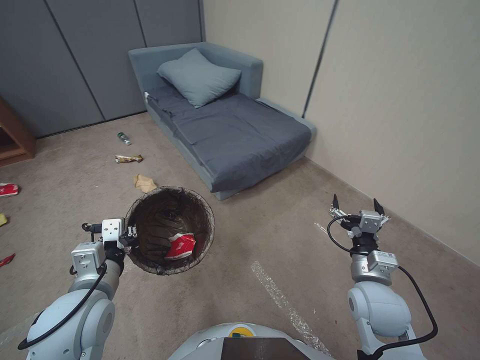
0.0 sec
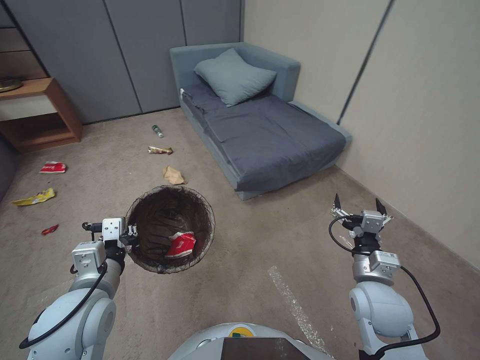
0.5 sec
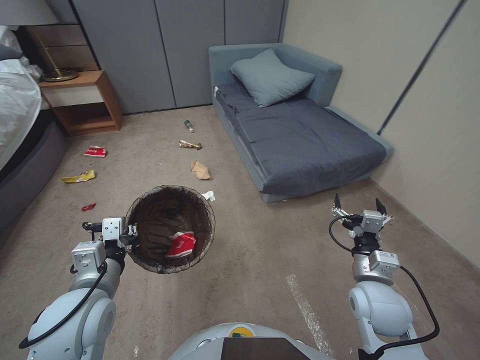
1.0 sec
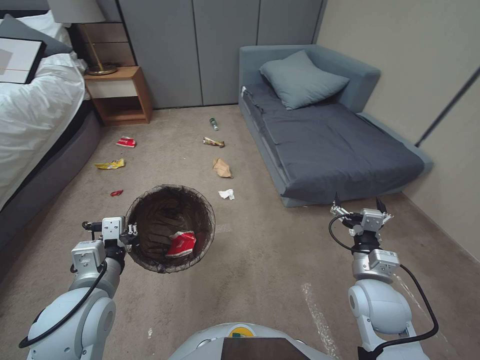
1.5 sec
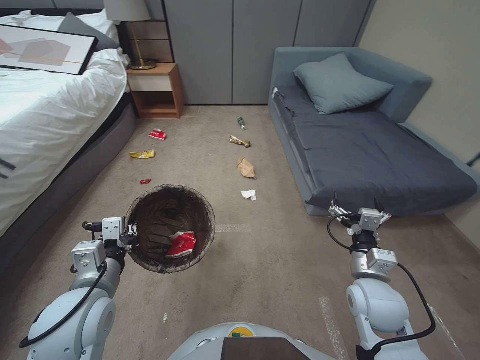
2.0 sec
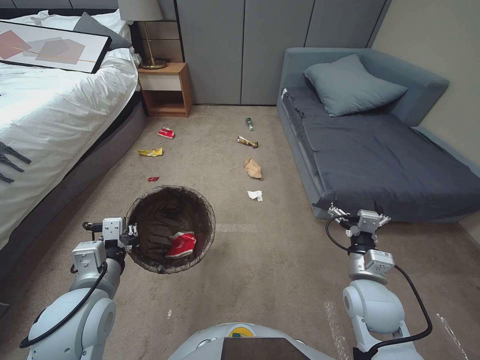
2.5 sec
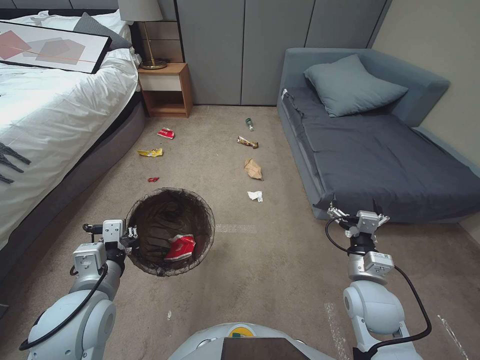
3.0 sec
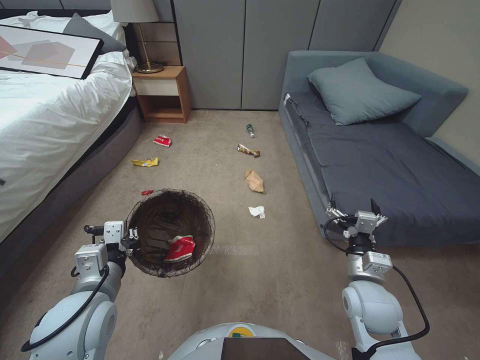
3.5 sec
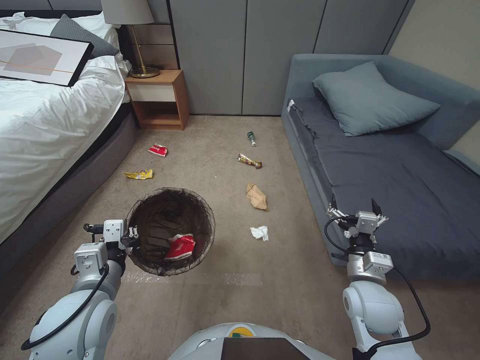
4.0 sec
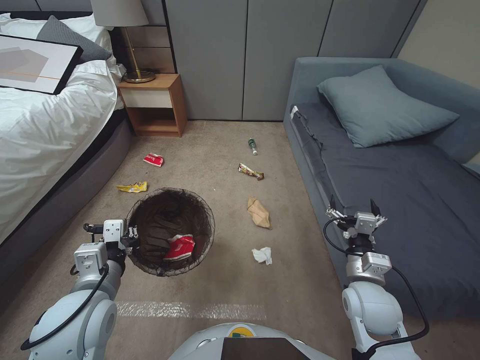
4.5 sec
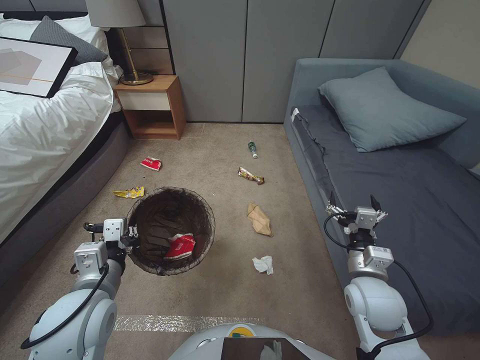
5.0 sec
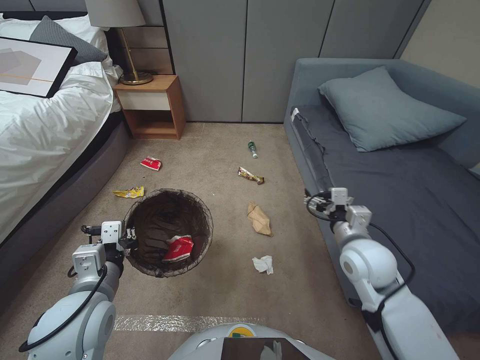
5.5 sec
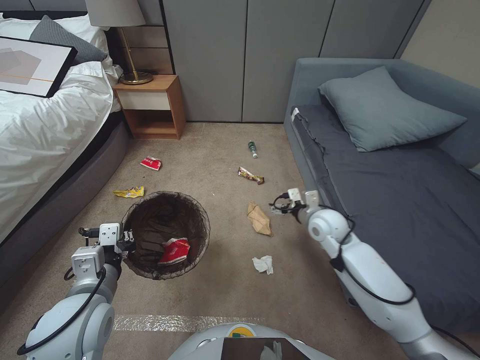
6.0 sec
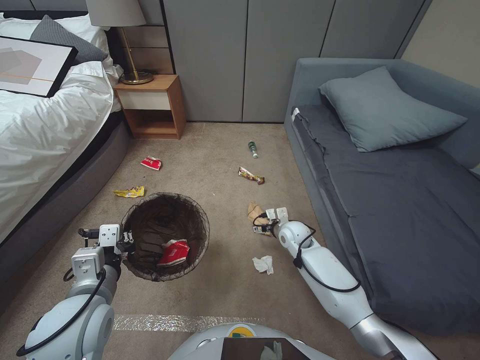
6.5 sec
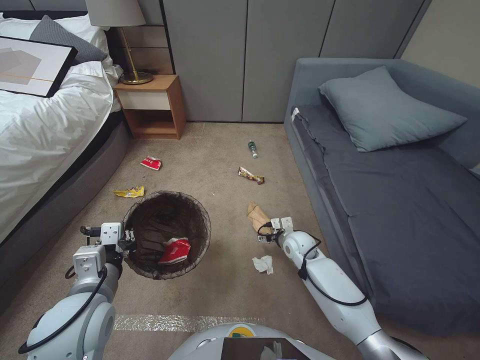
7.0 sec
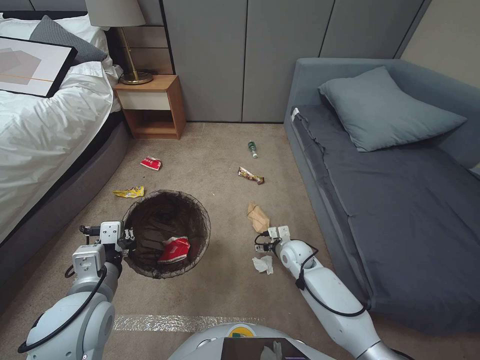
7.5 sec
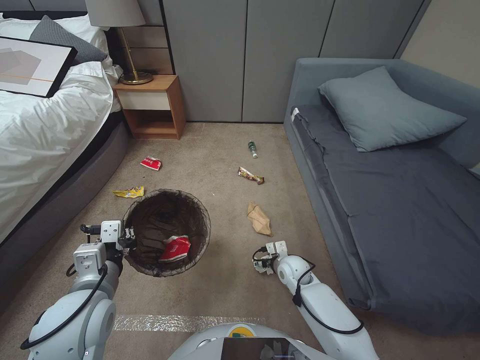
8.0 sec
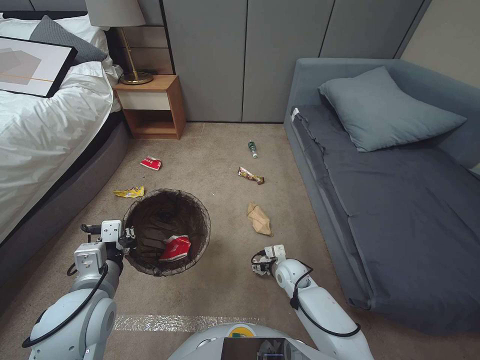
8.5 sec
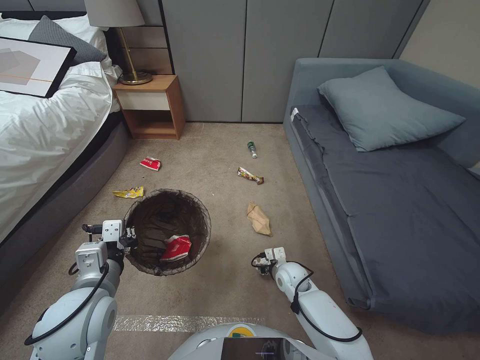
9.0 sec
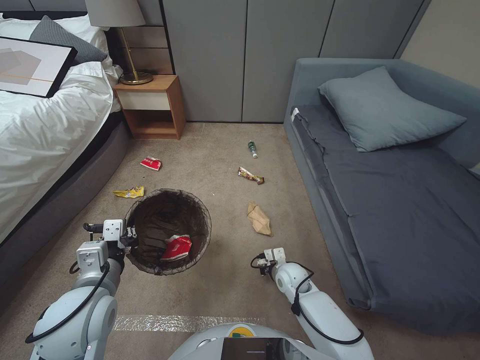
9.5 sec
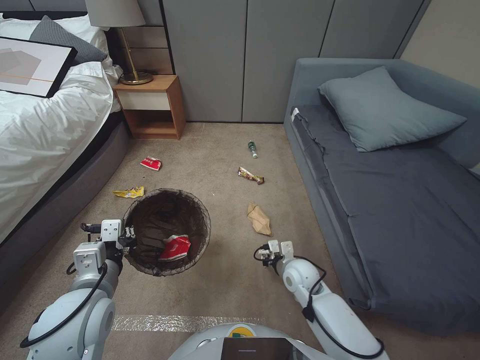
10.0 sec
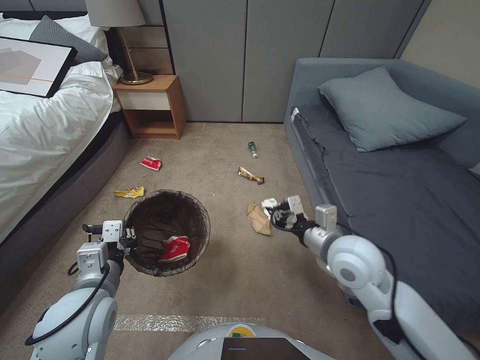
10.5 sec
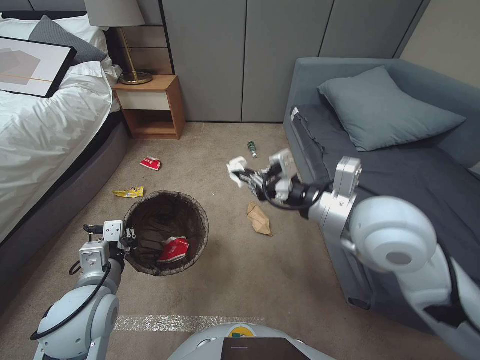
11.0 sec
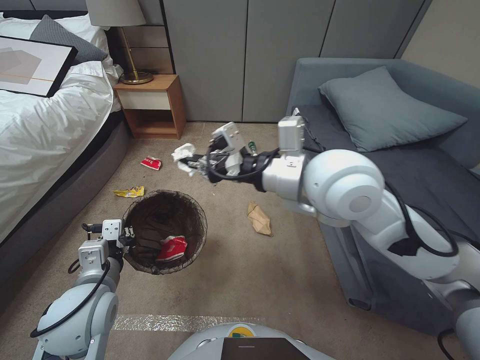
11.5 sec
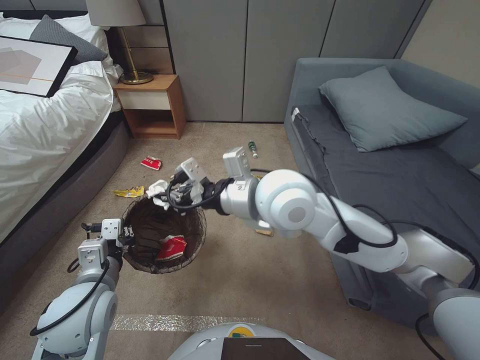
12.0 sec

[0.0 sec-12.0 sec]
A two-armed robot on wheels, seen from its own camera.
Task of the whole recording: Pick up the trash bin, then pick up the garbage from the floor and place it into the trash bin.
4.0 sec to 6.0 sec: The right gripper shifts some 15 cm forward.
6.0 sec to 8.0 sec: The right gripper is displaced downward by some 20 cm.
8.0 sec to 10.0 sec: The right gripper closes.
10.0 sec to 12.0 sec: The right gripper goes some 40 cm upward.

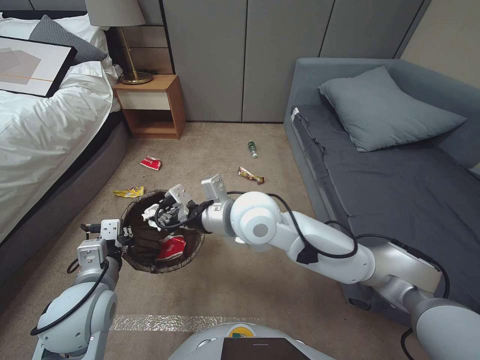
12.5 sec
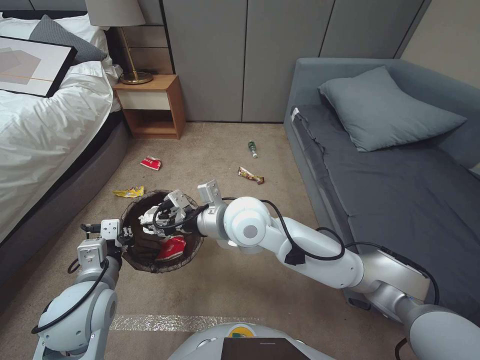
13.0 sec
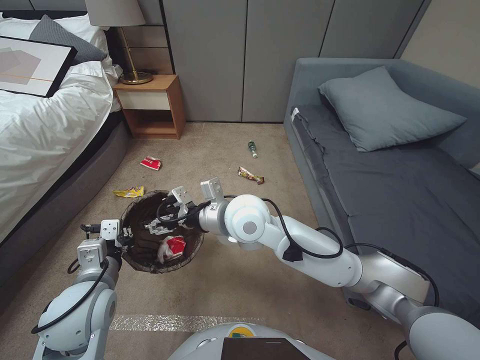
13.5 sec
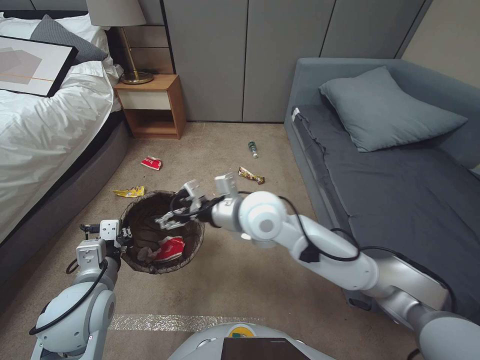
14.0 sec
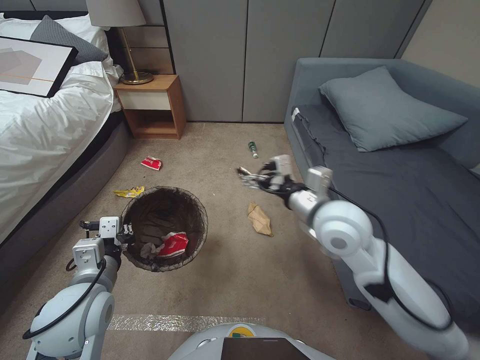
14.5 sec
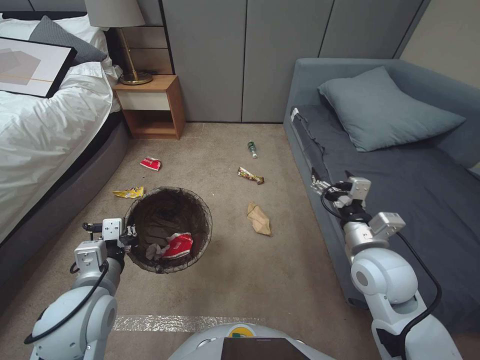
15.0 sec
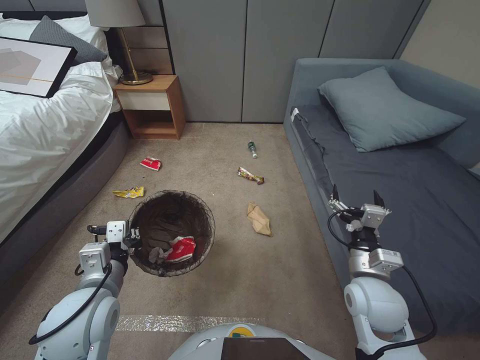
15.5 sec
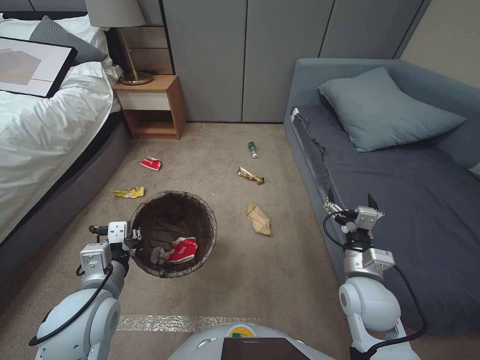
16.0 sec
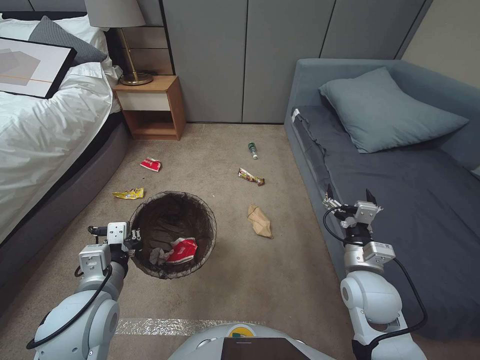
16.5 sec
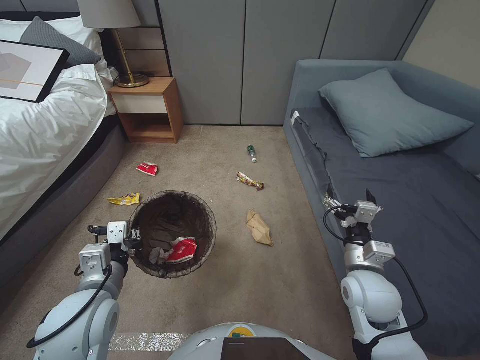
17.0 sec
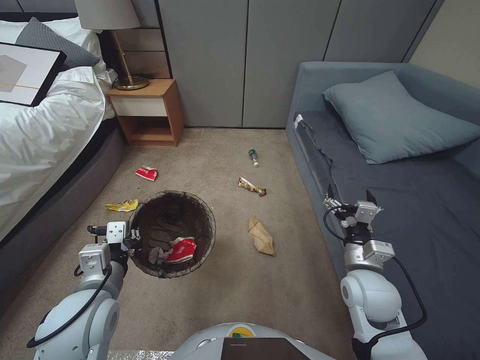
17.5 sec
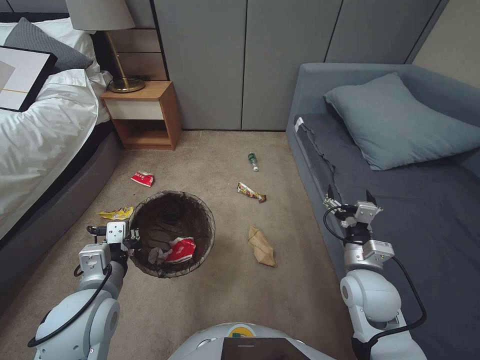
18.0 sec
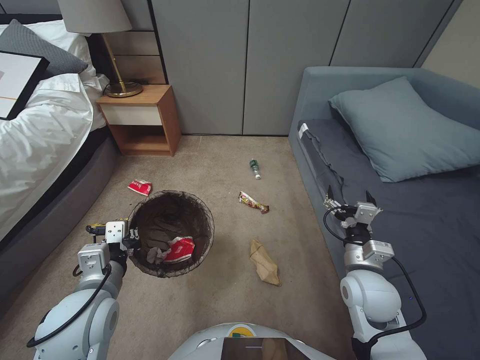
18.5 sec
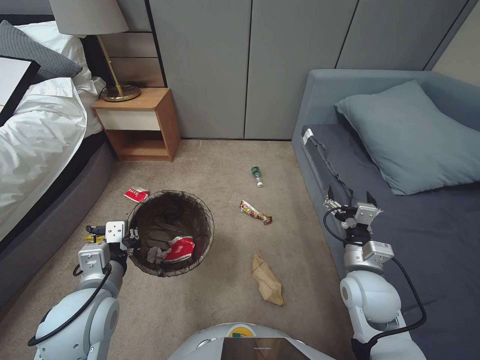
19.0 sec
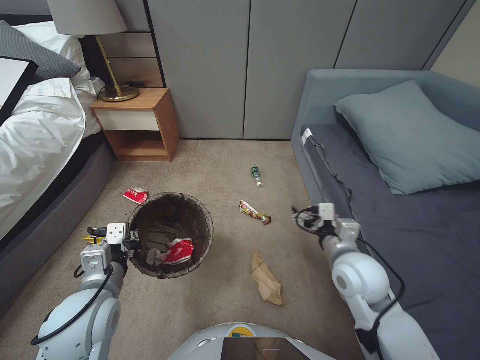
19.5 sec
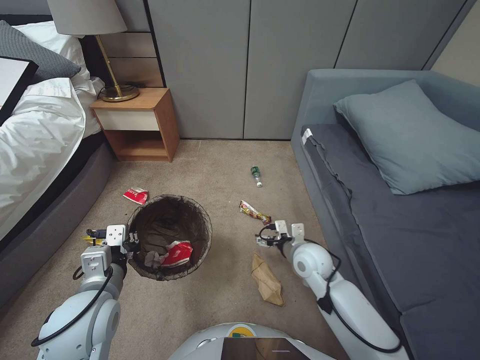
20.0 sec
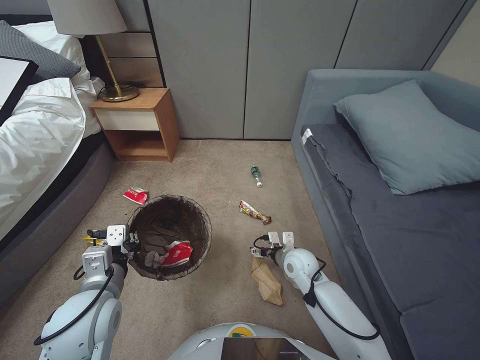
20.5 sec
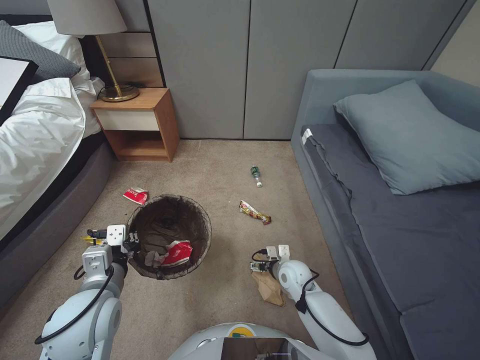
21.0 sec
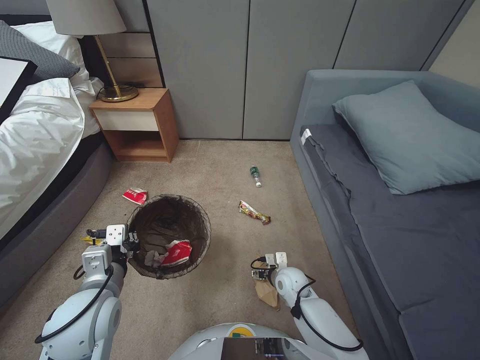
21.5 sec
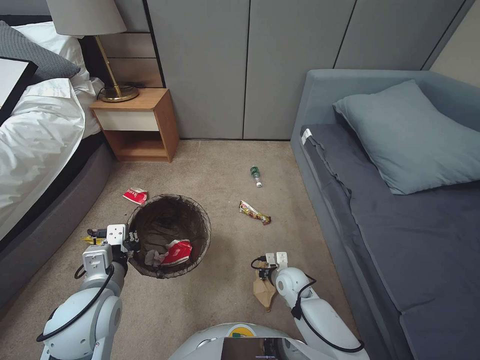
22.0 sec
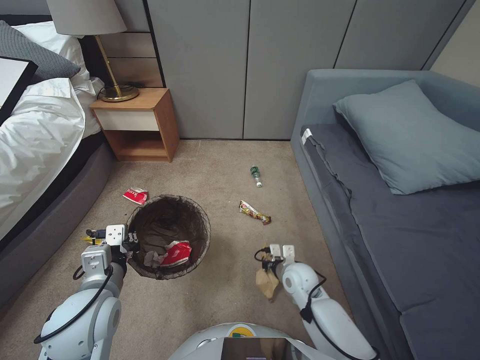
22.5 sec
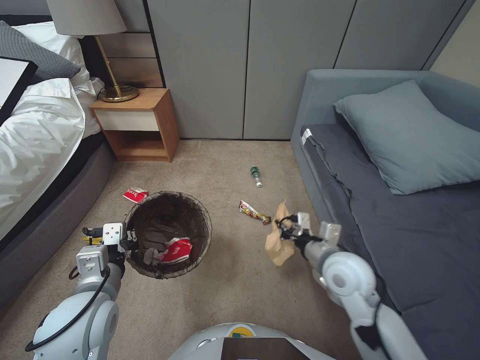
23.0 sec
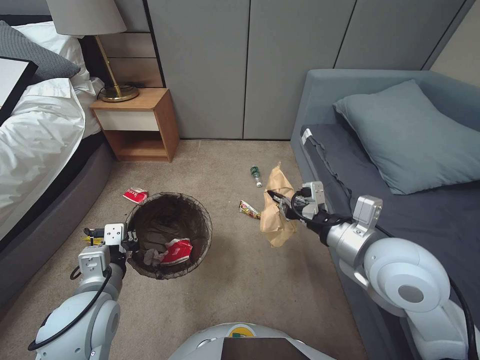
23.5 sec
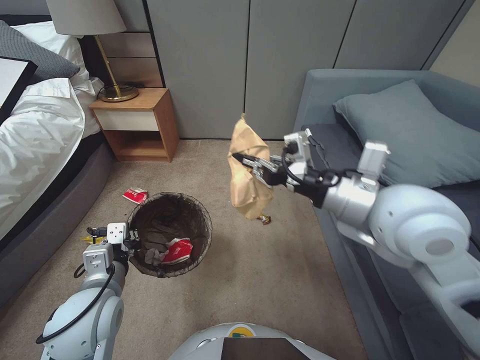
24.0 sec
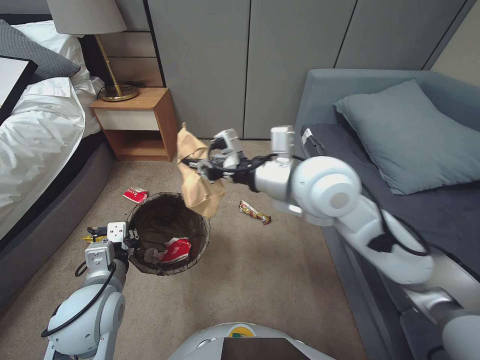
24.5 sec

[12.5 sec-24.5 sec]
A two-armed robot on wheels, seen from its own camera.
Task of the whole recording: Pick up the trash bin, then pick up the garbage from the floor and place it into the trash bin.
12.5 sec to 14.5 sec: The right gripper shifts approximately 15 cm to the right, and opens.
14.5 sec to 16.5 sec: The right gripper travels downward, to the right and backward by approximately 20 cm.
18.5 sec to 20.5 sec: The right gripper heads downward, forward and to the left, covering about 15 cm.
20.5 sec to 22.5 sec: The right gripper shifts approximately 5 cm downward, and closes.
22.5 sec to 24.5 sec: The right gripper is displaced upward by roughly 40 cm.

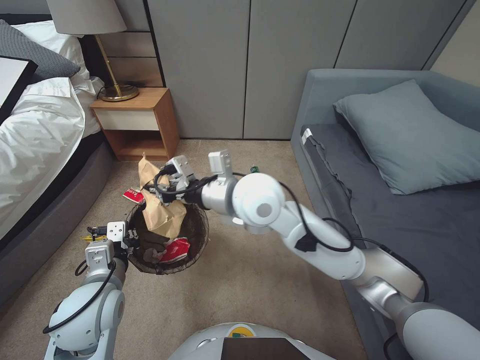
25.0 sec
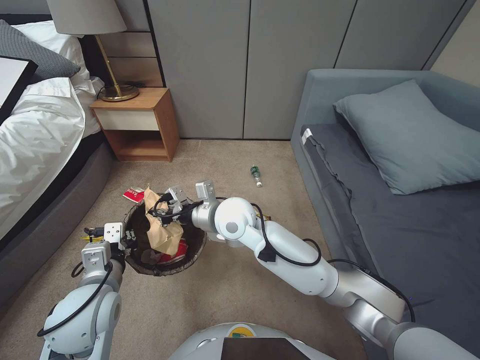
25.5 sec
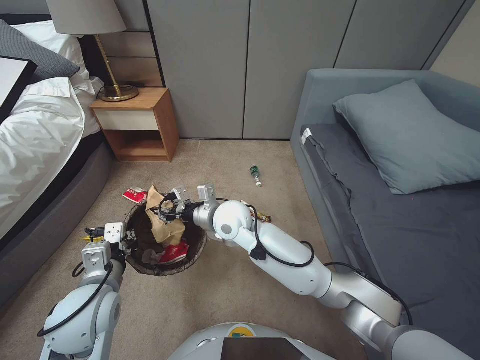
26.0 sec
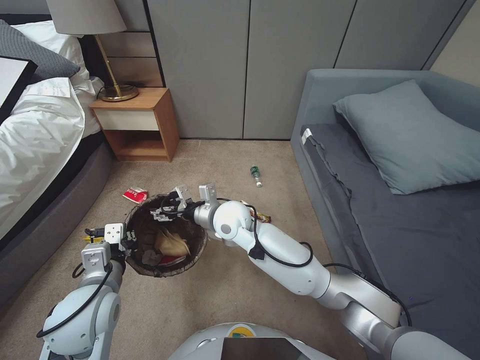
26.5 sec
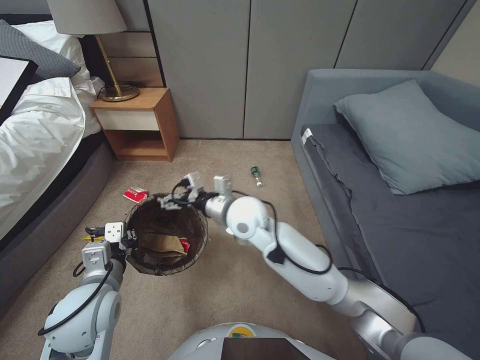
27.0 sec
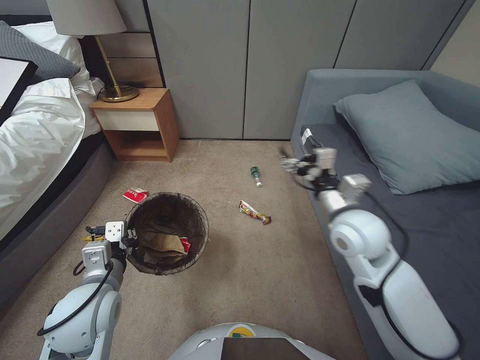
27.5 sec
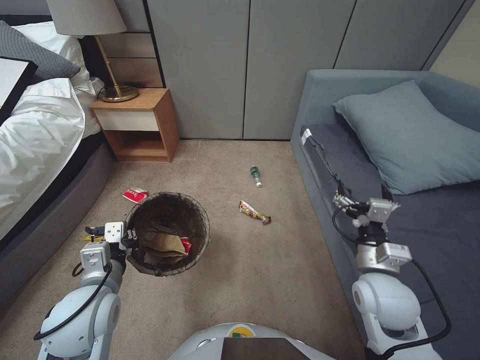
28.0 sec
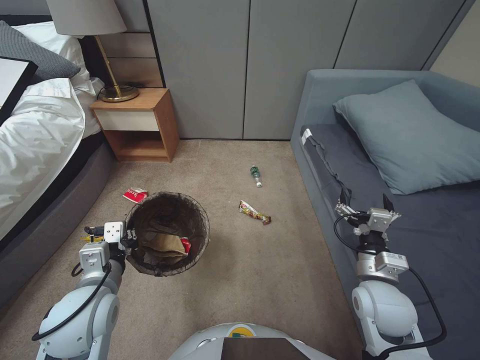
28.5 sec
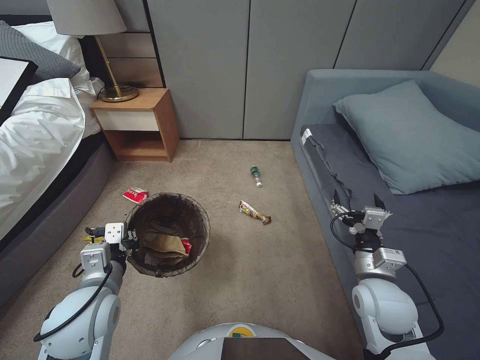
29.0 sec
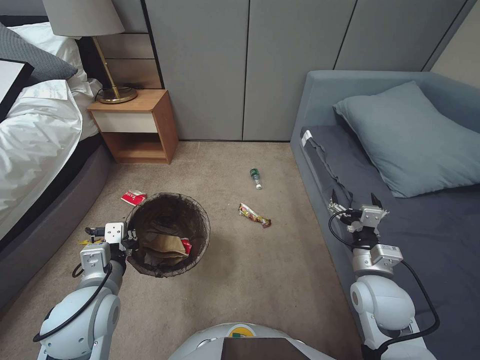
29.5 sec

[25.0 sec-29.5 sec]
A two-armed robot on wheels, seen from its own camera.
Task of the whole recording: Pick up the trash bin, then pick up the garbage from the floor and place it into the trash bin.
25.0 sec to 27.0 sec: The right gripper shifts roughly 10 cm downward, and opens its fingers.
27.0 sec to 29.5 sec: The right gripper heads to the right and backward, covering approximately 35 cm.
